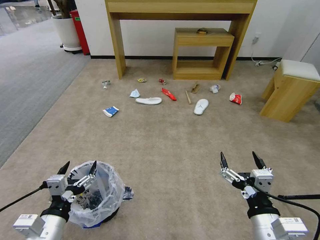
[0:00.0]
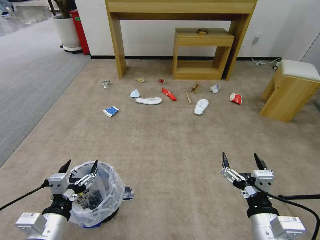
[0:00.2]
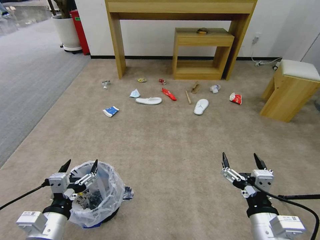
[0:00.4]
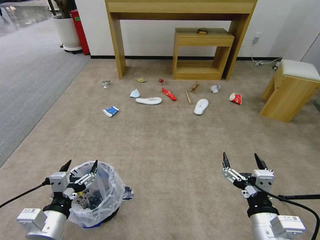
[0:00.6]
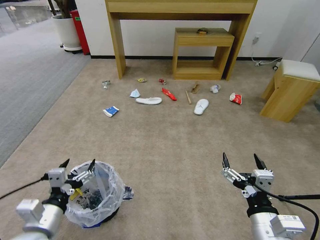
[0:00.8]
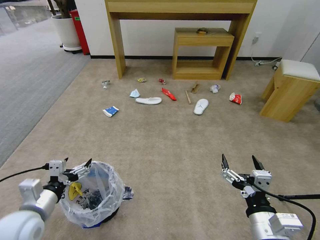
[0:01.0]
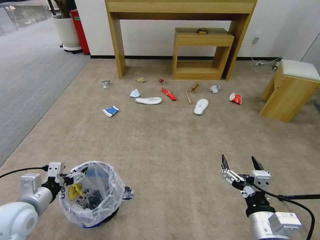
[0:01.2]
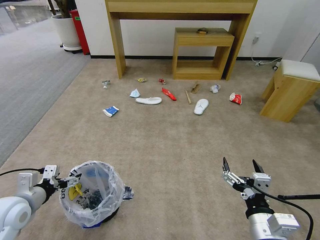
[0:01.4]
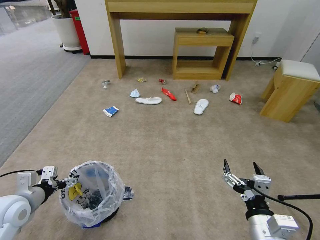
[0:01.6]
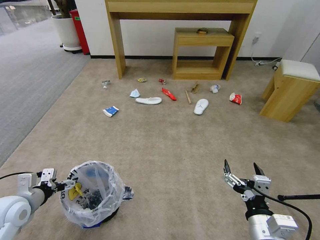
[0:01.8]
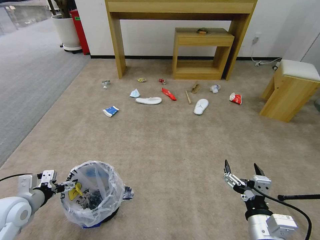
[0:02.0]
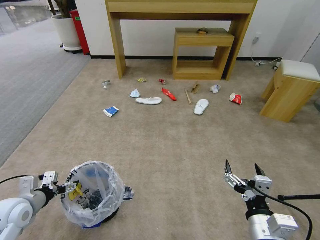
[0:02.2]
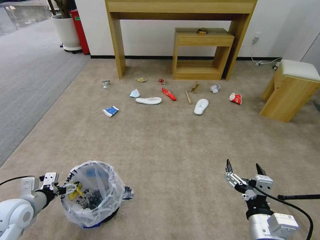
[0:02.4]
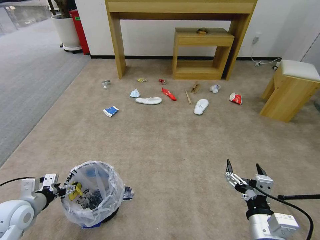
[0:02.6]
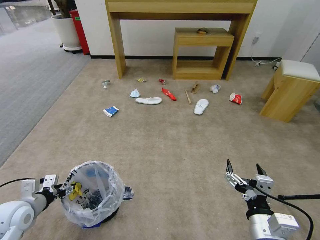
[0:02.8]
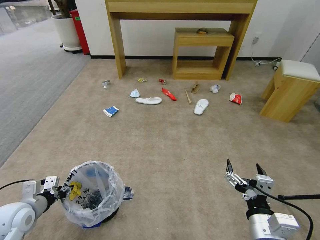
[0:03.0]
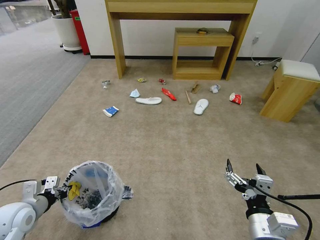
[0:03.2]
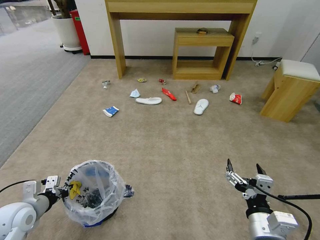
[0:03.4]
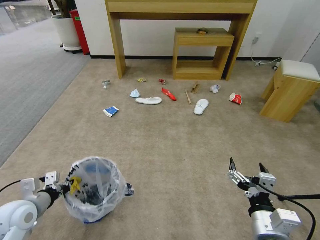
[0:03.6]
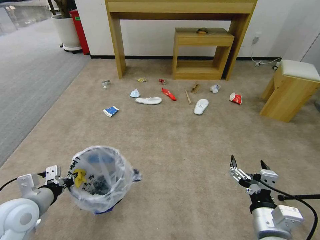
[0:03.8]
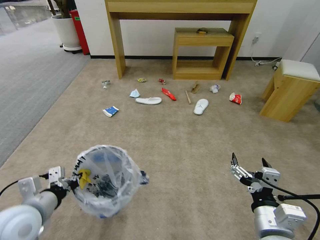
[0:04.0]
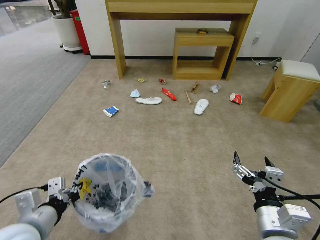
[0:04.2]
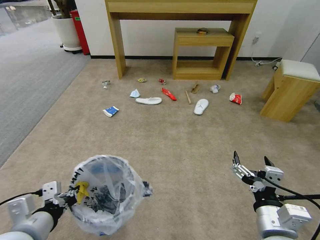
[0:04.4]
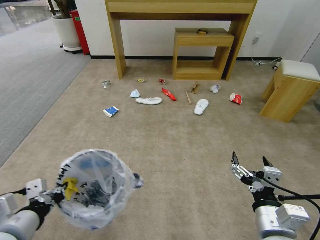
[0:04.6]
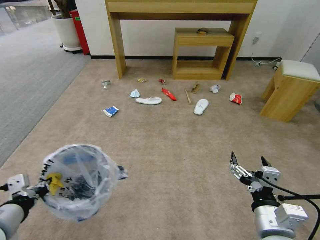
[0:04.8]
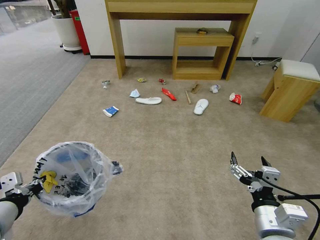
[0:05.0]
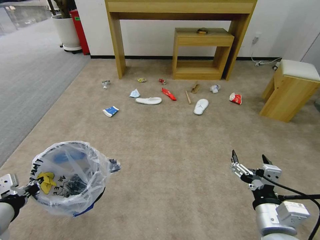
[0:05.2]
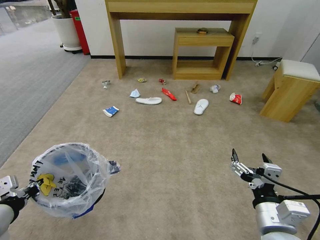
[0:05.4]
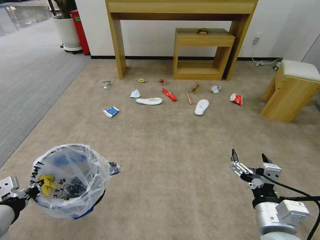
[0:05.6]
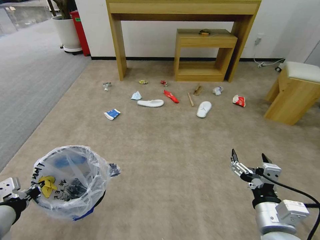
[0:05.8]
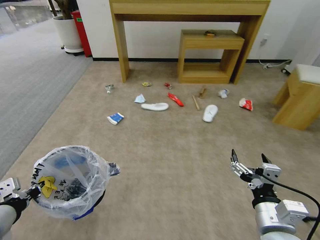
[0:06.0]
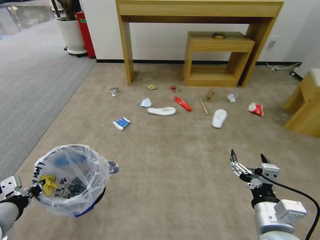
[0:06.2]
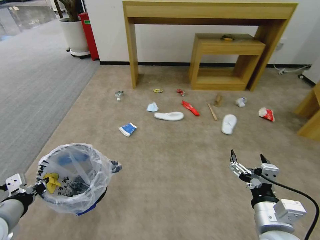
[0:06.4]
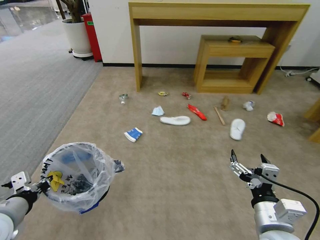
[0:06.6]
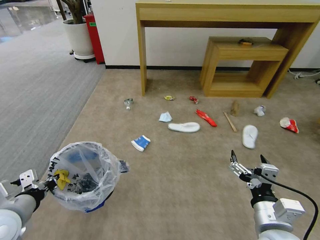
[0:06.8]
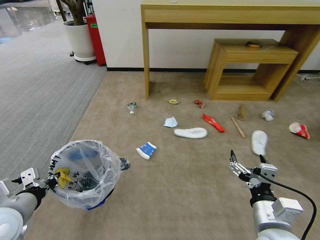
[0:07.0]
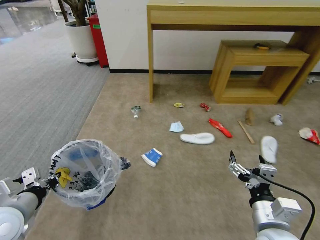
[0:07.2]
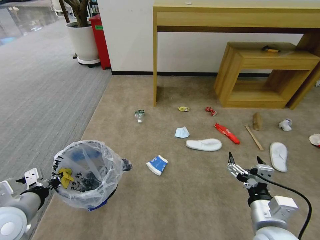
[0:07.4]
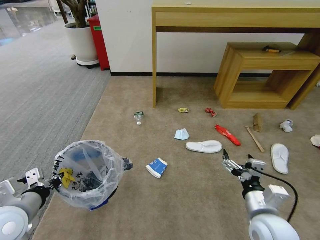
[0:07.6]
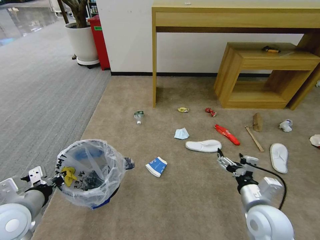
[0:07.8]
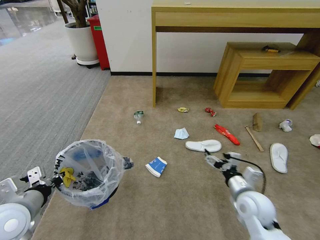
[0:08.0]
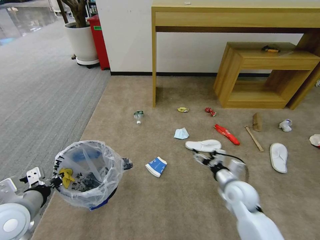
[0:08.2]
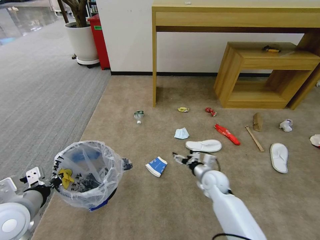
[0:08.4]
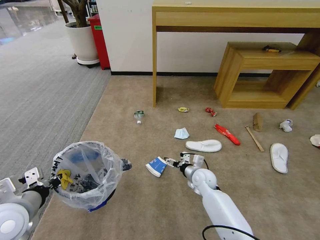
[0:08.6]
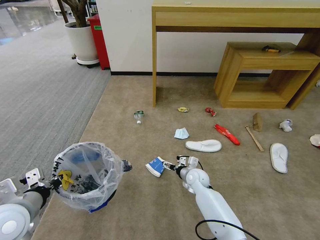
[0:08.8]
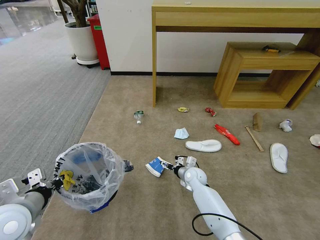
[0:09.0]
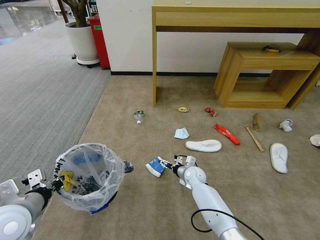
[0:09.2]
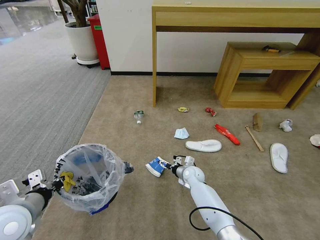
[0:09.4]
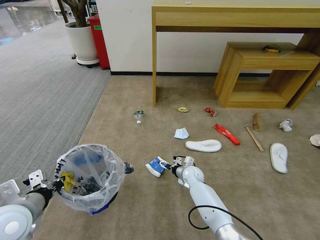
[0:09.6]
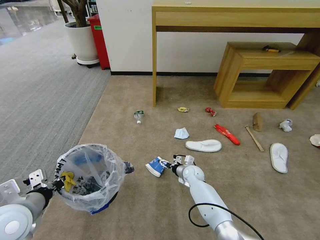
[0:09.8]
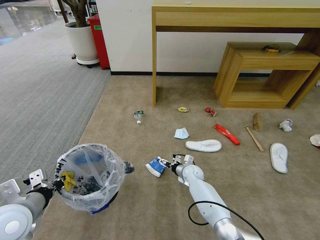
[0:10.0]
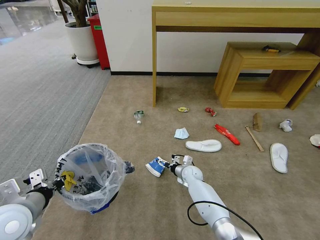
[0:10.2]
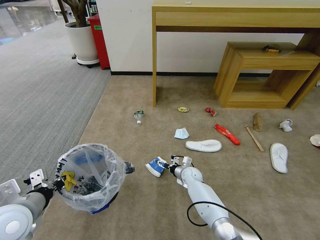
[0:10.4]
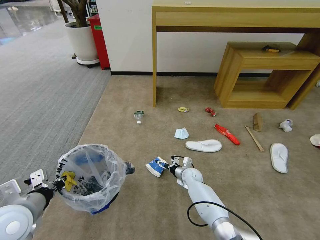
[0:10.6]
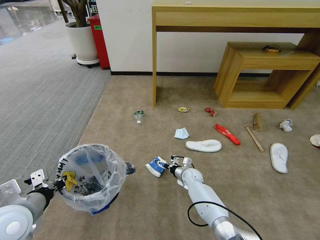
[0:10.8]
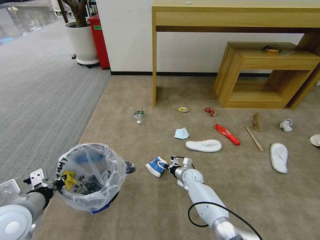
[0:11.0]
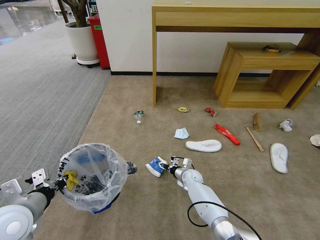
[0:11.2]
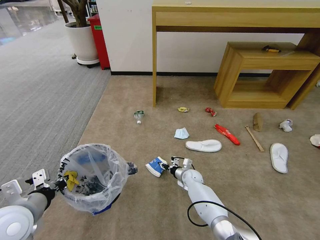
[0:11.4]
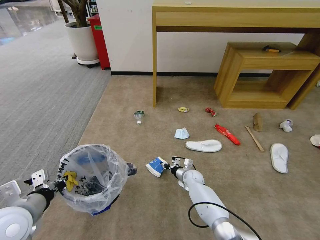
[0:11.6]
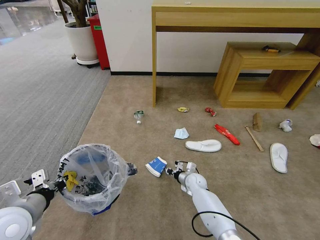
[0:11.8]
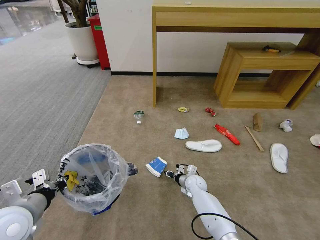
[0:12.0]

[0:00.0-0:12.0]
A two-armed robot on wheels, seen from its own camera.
Task of the whole recording: Pick up the trash bin and place the garbage on the floor into it.
0:01.6 to 0:03.0: The left gripper closes up.
0:03.0 to 0:04.4: The left gripper heads to the right, upward and backward, covering about 20 cm, and closes its fingers.
0:04.4 to 0:06.0: The left gripper moves to the left, about 10 cm.
0:06.0 to 0:07.6: The right gripper ends up roughly 5 cm from where it was. Meanwhile the left gripper shifts by roughly 5 cm.
0:07.6 to 0:09.0: The right gripper goes some 35 cm forward, downward and to the left.
0:09.0 to 0:10.4: The right gripper moves roughly 5 cm.
0:10.4 to 0:12.0: The right gripper closes its fingers.

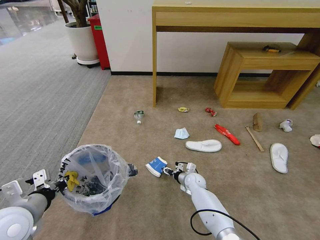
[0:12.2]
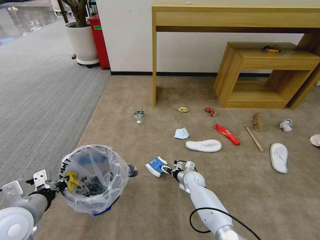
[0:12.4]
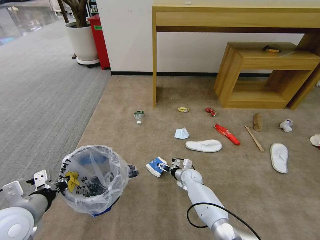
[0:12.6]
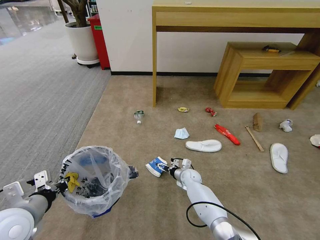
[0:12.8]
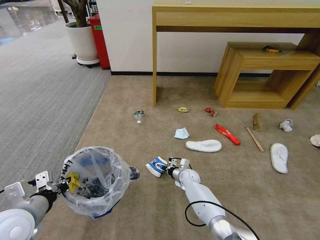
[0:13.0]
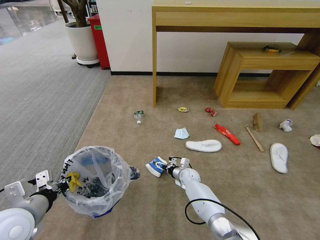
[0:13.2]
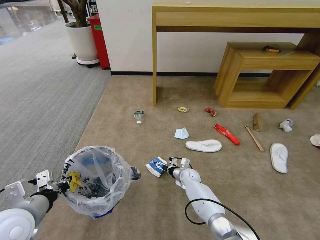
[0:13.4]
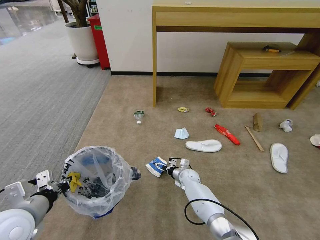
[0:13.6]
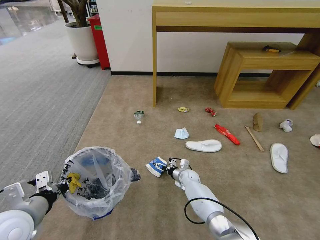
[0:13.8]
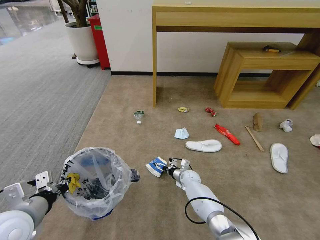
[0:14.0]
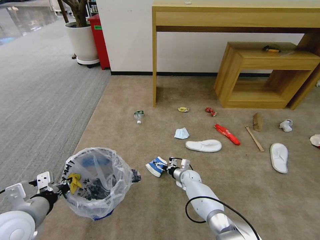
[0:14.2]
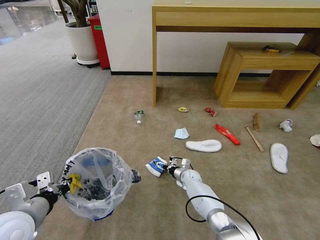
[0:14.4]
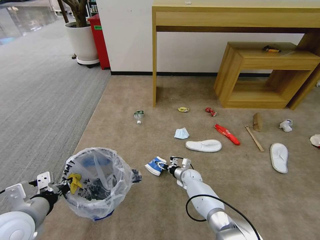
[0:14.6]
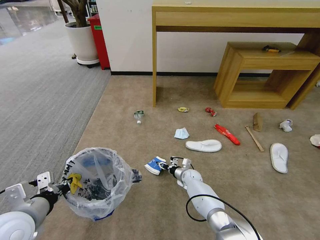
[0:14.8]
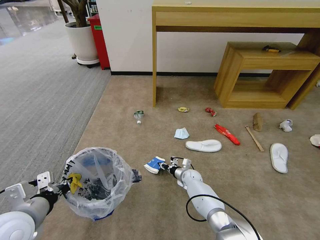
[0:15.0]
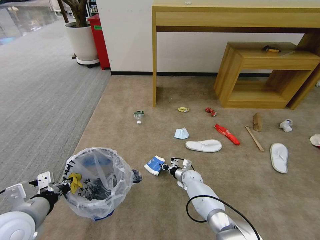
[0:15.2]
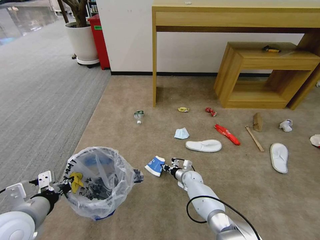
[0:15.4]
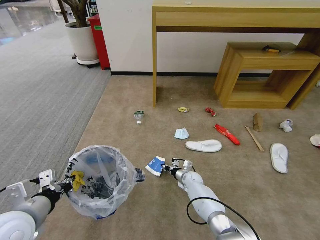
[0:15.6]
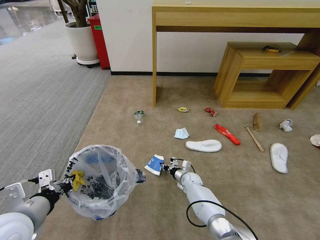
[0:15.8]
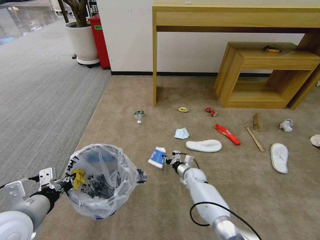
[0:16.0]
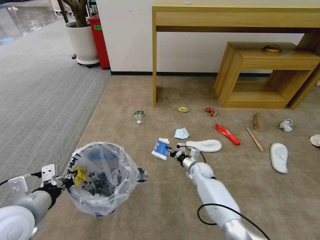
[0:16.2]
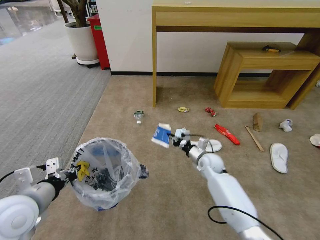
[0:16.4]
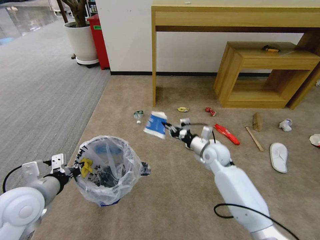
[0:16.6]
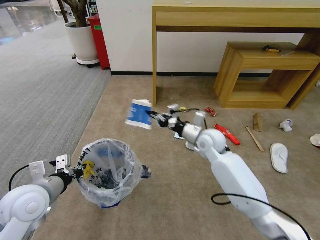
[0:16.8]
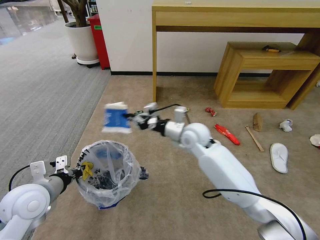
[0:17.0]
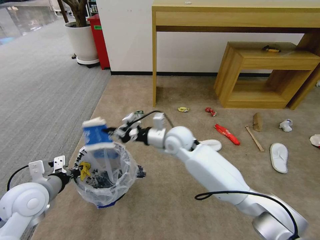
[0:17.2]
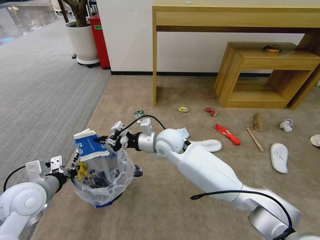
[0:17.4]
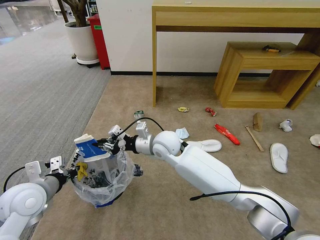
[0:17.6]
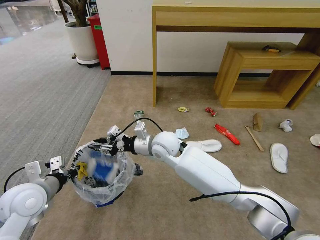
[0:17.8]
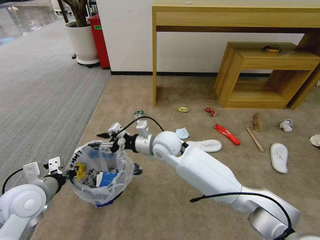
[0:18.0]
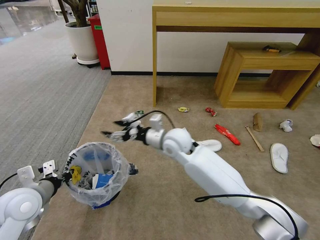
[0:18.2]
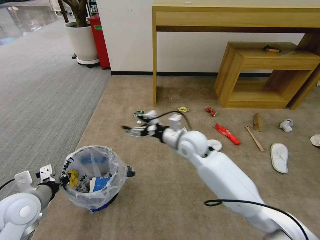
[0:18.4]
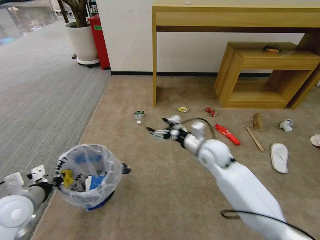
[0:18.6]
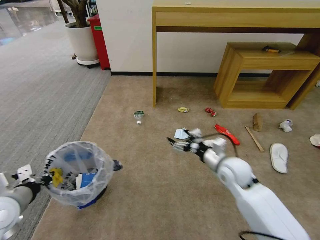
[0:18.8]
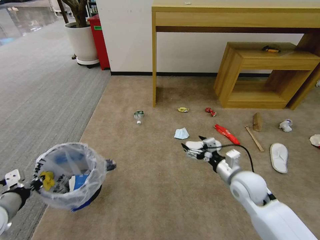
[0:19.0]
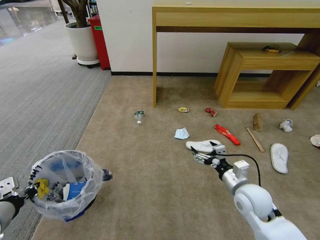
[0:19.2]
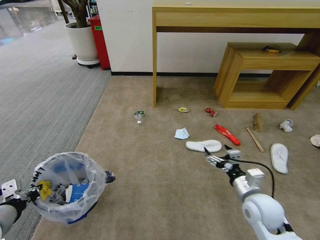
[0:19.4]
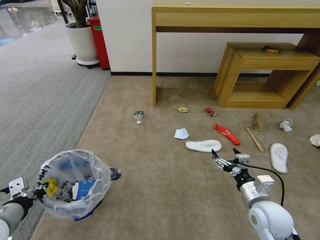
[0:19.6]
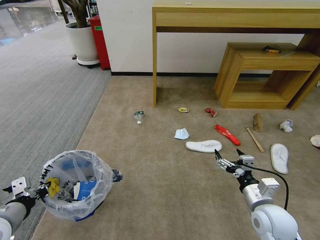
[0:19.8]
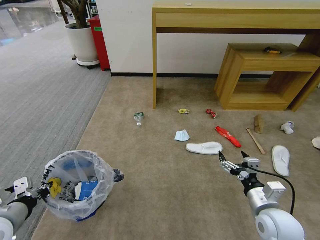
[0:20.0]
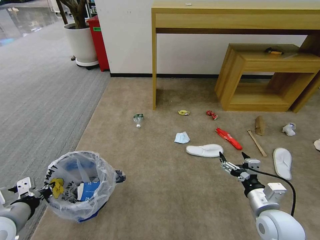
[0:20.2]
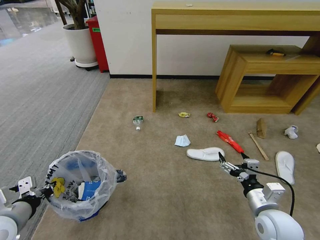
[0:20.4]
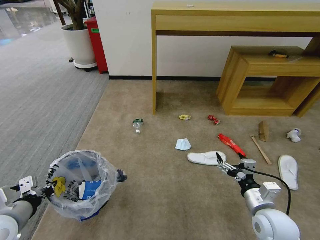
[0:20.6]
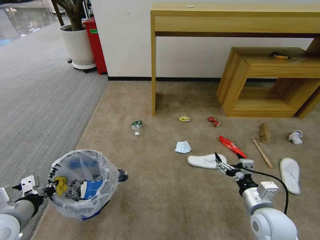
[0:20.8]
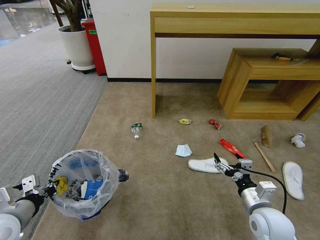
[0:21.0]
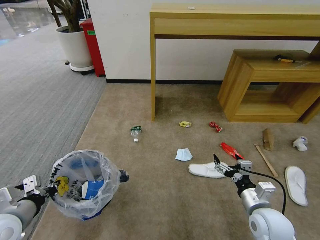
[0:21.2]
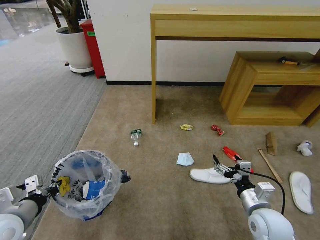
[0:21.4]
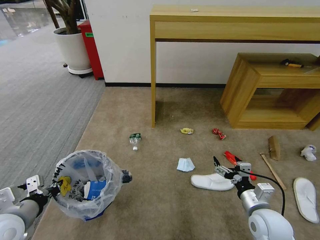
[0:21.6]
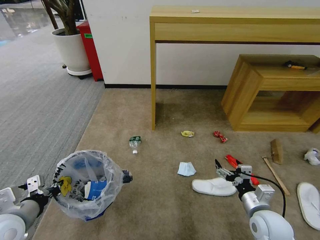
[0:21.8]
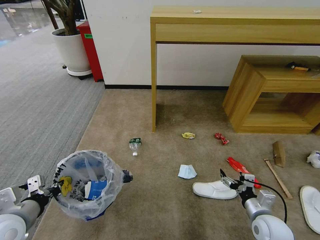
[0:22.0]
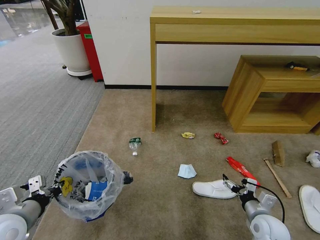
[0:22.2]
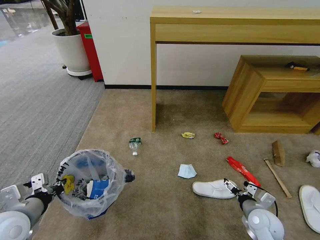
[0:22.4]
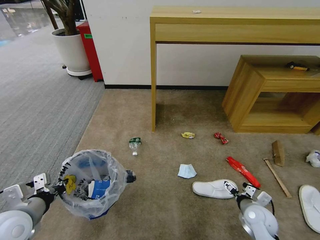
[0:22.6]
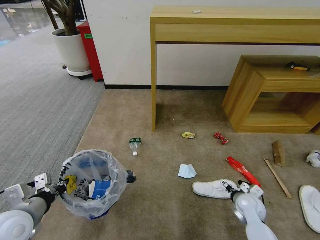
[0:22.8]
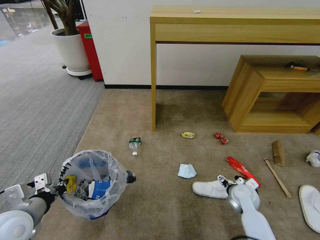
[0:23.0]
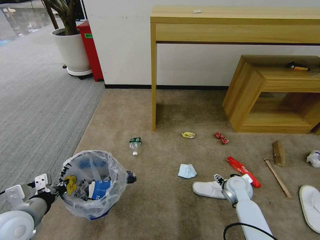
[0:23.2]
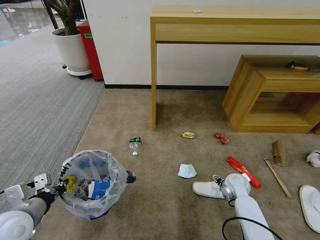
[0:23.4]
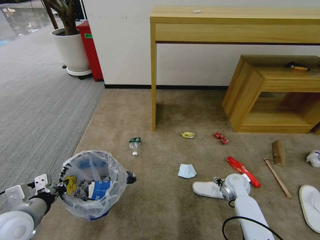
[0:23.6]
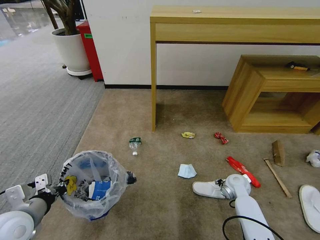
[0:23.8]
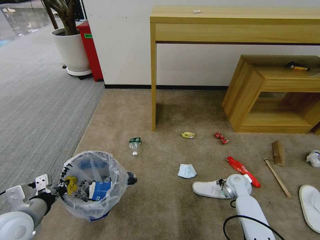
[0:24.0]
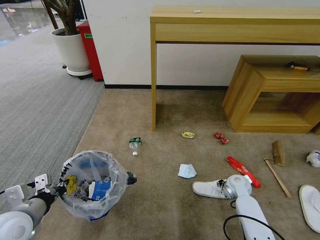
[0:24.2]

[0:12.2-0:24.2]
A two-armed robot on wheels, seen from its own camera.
Task of the whole recording: Pick up the trash bin and place the garbage on the floor into it.
0:12.2 to 0:13.8: The right gripper opens.
0:13.8 to 0:15.2: The right gripper closes its fingers.
0:15.2 to 0:16.6: The right gripper shifts about 25 cm upward. Meanwhile the left gripper ends up roughly 5 cm from where it was.
0:16.6 to 0:18.2: The right gripper shifts roughly 20 cm to the left and upward, and opens its fingers.
0:18.2 to 0:19.8: The right gripper travels to the right and backward by about 35 cm. The left gripper heads backward, covering roughly 5 cm.
0:21.2 to 0:22.6: The right gripper travels downward by approximately 10 cm.
0:22.6 to 0:24.2: The right gripper shifts about 15 cm forward, and closes up.
